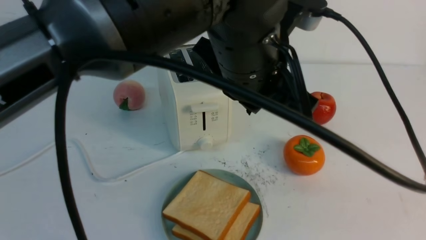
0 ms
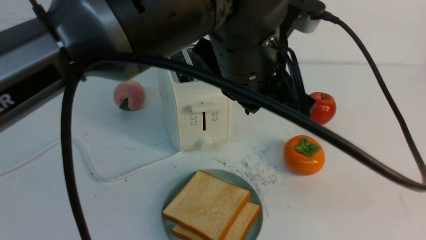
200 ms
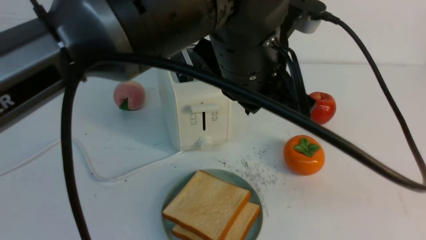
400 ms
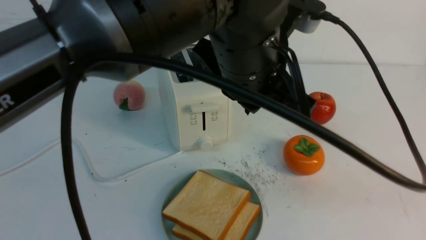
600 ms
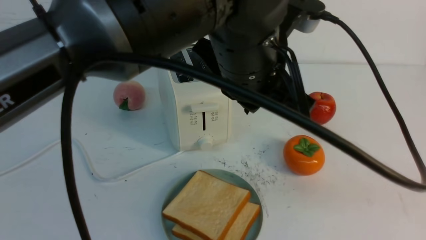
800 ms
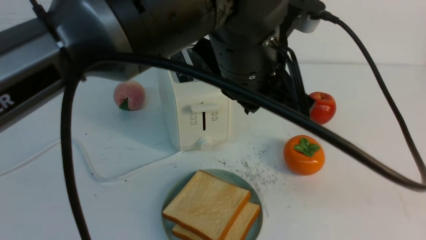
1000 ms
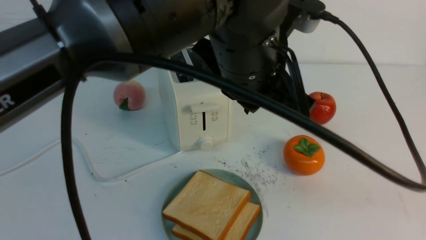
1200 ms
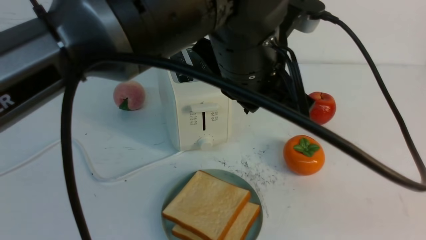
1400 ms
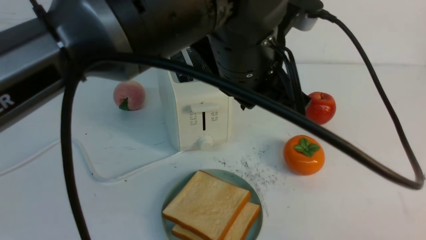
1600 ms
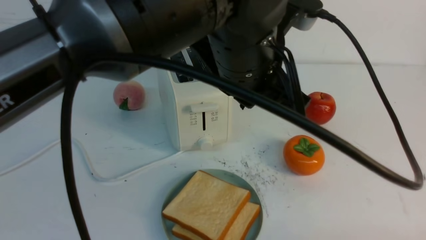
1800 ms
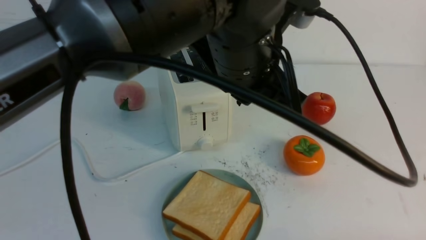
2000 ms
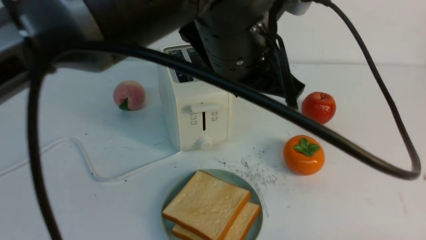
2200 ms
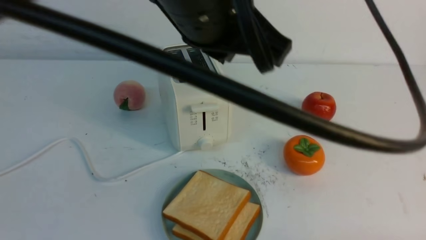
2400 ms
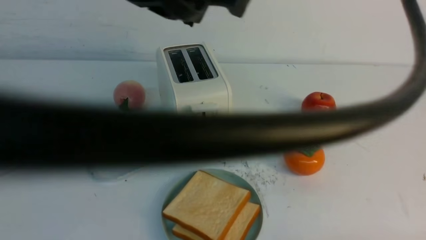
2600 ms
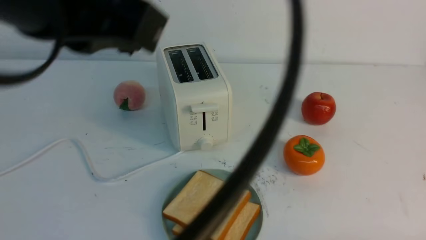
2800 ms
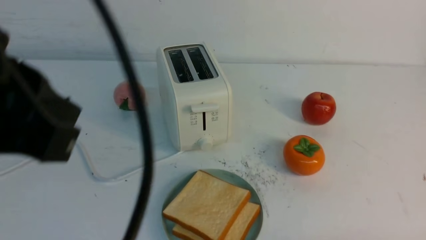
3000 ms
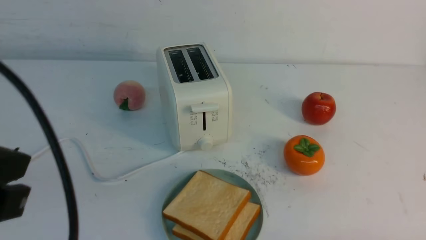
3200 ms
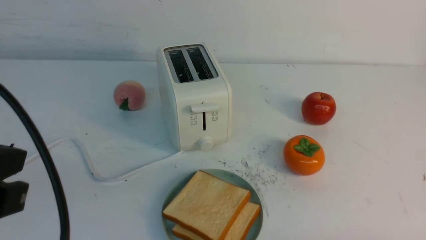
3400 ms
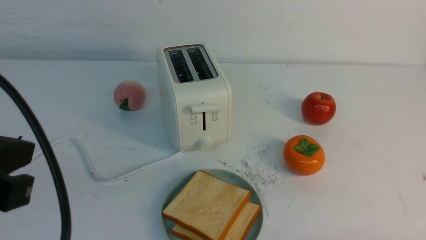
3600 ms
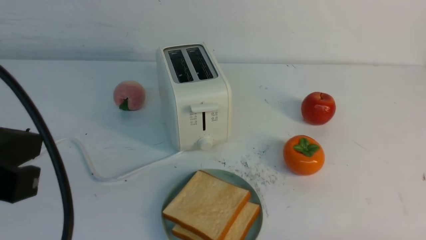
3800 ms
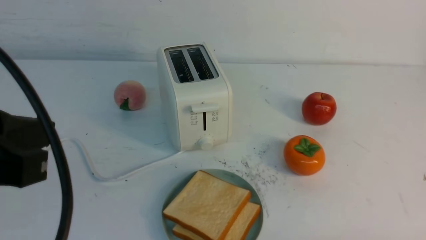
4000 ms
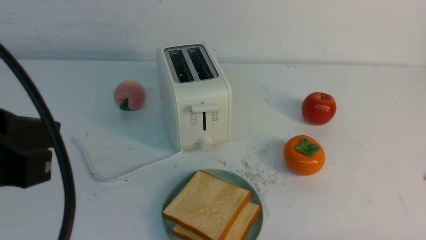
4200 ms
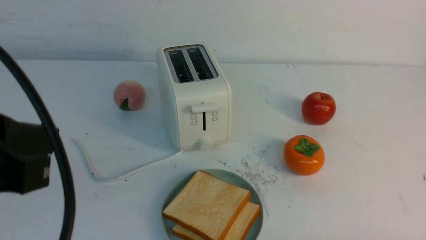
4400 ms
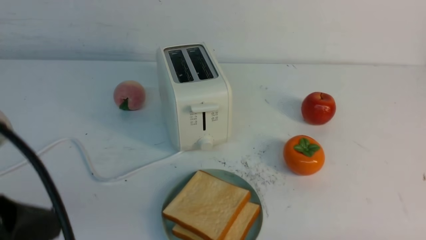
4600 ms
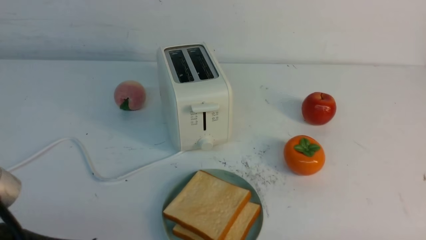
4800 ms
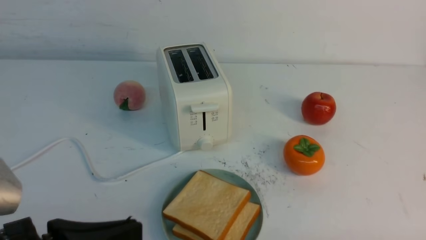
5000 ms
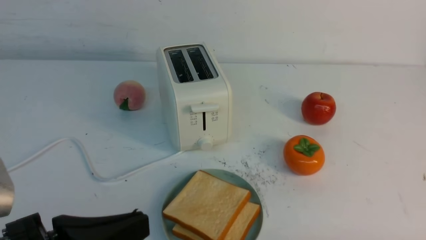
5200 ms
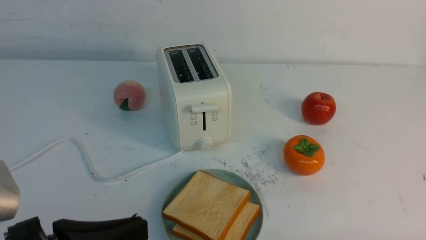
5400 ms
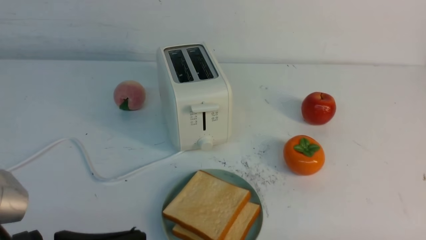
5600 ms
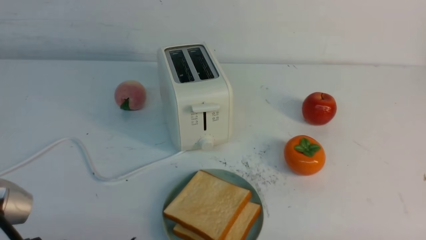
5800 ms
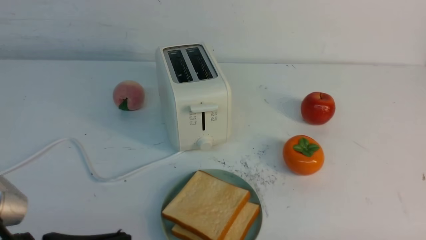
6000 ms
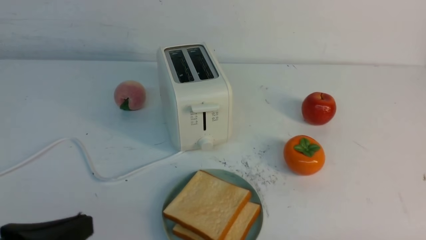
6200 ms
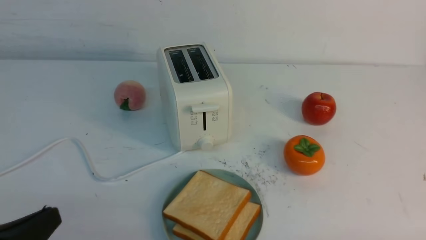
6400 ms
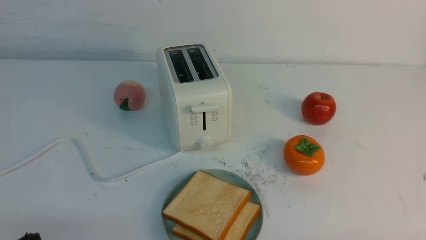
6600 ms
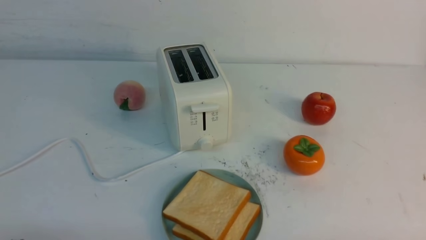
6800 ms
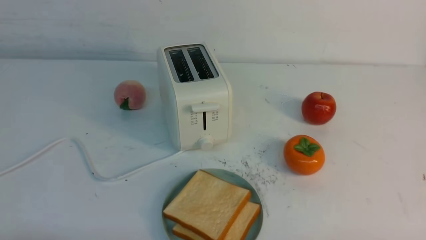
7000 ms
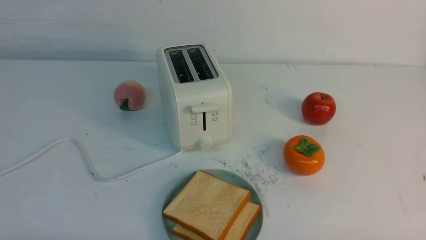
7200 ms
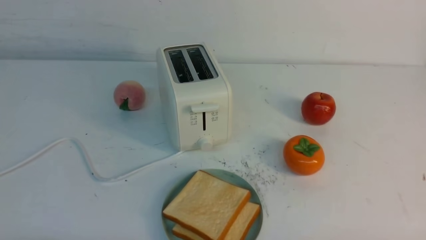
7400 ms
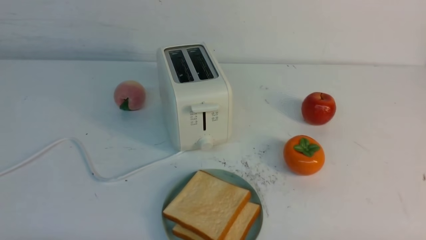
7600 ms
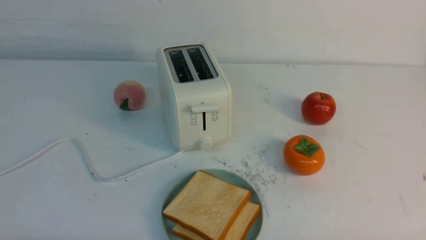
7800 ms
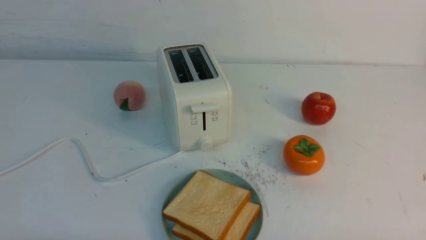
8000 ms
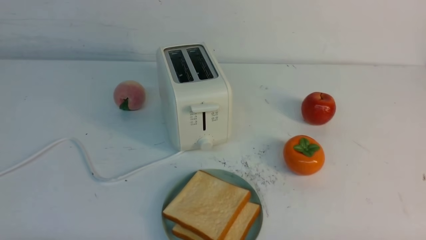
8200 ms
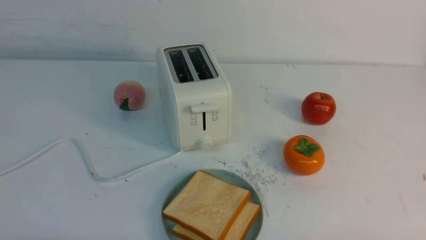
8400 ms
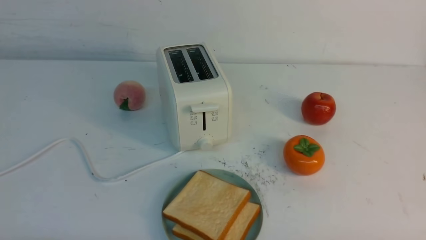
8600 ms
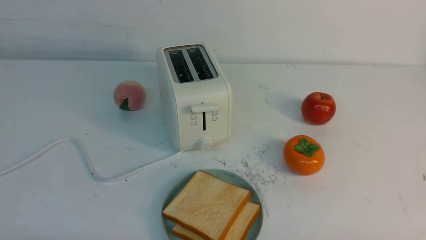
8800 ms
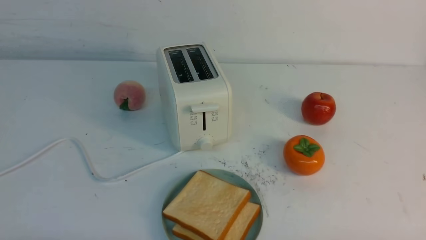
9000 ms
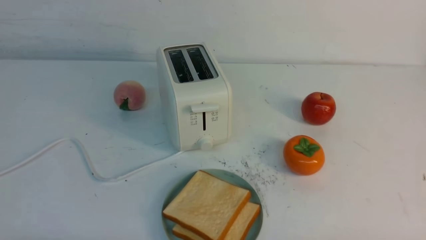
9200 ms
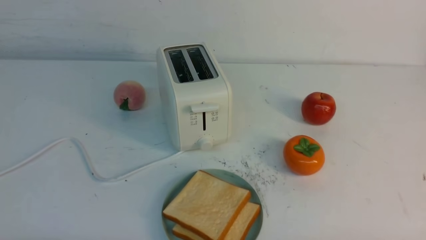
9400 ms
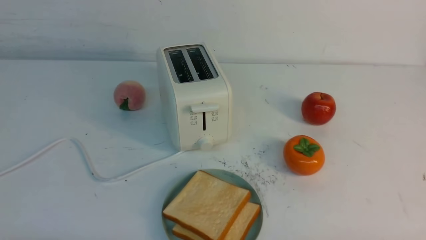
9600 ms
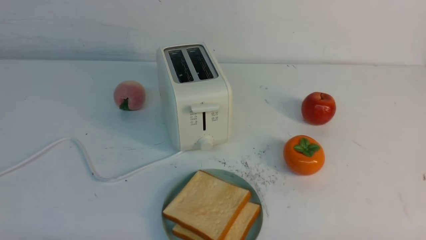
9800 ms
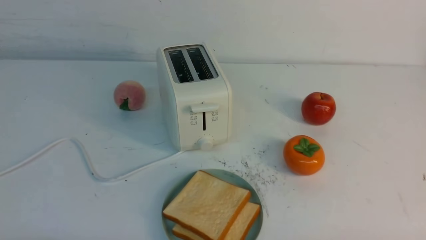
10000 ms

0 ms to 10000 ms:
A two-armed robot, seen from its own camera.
Task of the whole recording: take toasted bread from bread machine on white table place on plate.
0 ms to 1400 ms: The right gripper is displaced downward by approximately 5 cm.
1400 ms to 2800 ms: The right gripper is displaced downward by about 10 cm, while the left gripper travels to the left, backward and upward by some 20 cm.
2800 ms to 4200 ms: The left gripper goes approximately 10 cm downward and to the left.
4200 ms to 5800 ms: The left gripper goes approximately 10 cm downward.
5800 ms to 7200 ms: The left gripper goes roughly 15 cm downward and to the left.
7200 ms to 10000 ms: Neither gripper changes place.

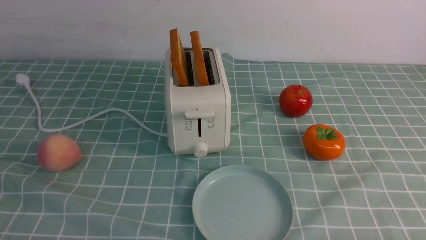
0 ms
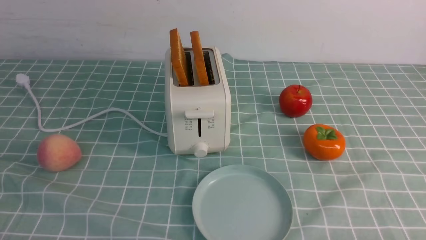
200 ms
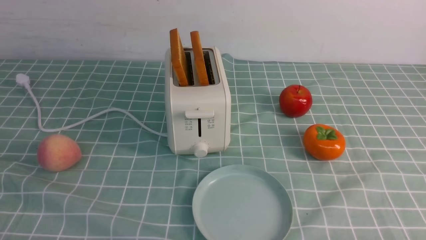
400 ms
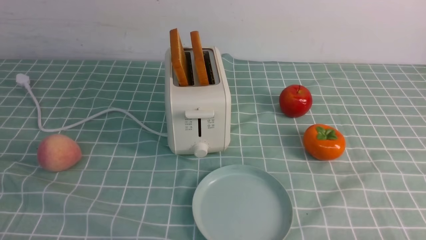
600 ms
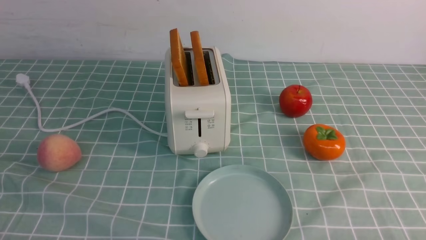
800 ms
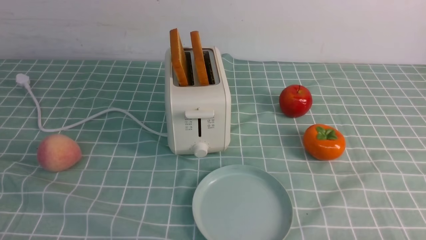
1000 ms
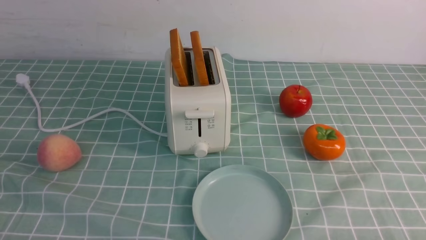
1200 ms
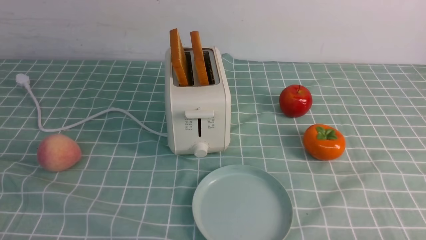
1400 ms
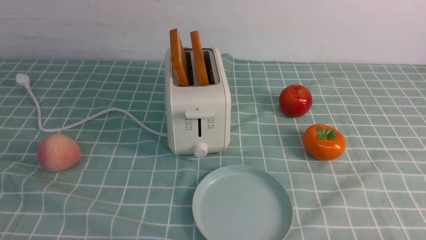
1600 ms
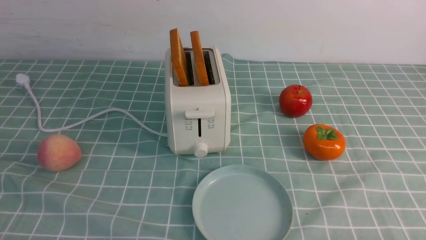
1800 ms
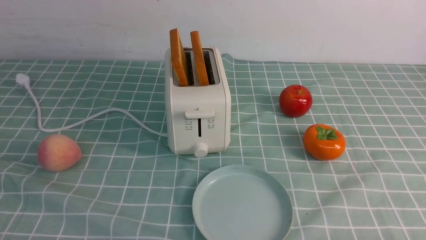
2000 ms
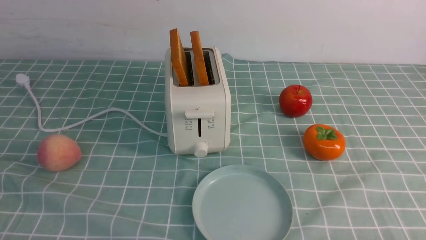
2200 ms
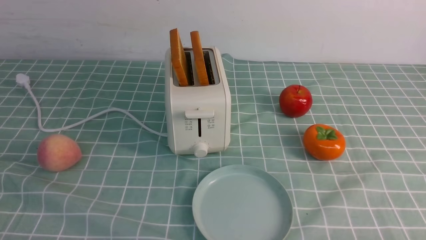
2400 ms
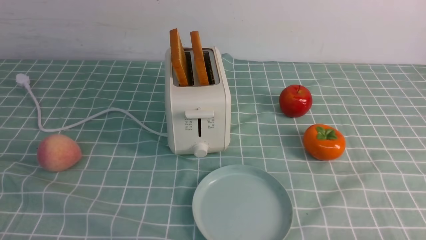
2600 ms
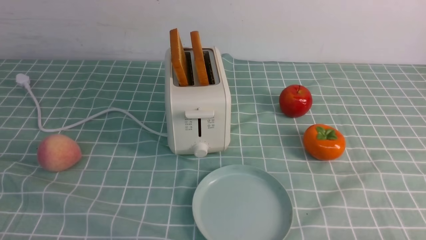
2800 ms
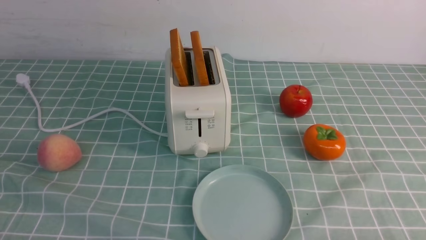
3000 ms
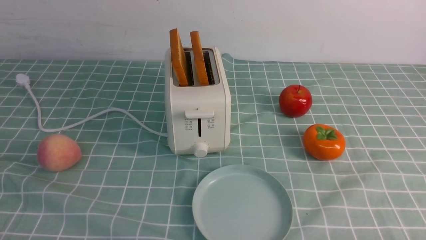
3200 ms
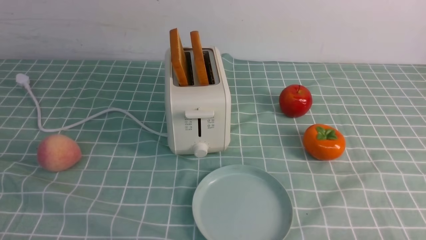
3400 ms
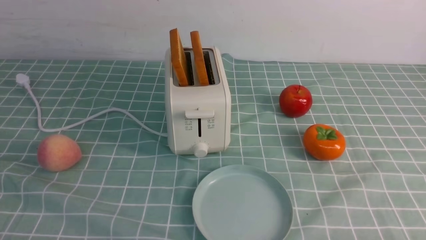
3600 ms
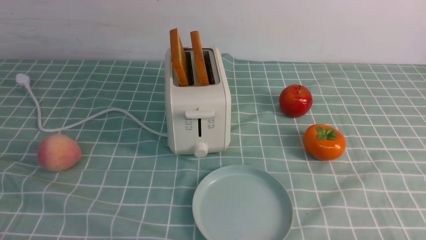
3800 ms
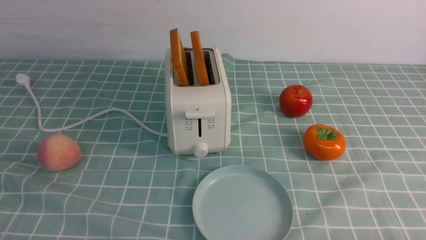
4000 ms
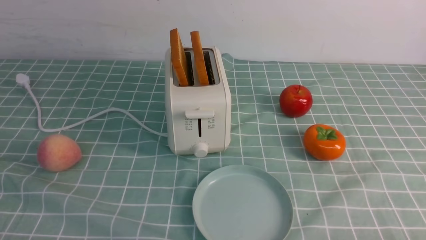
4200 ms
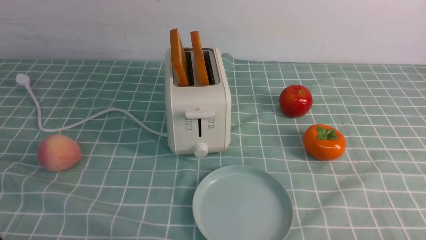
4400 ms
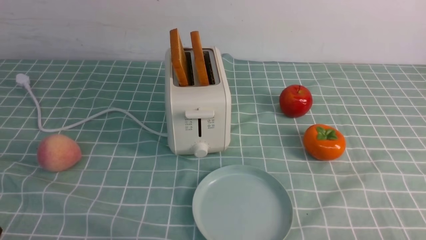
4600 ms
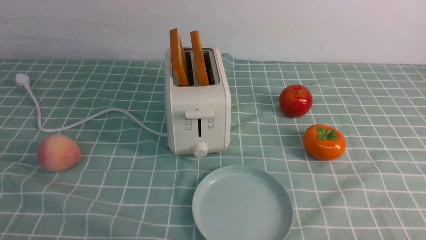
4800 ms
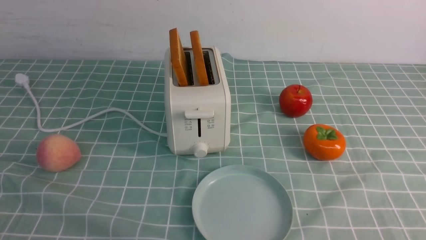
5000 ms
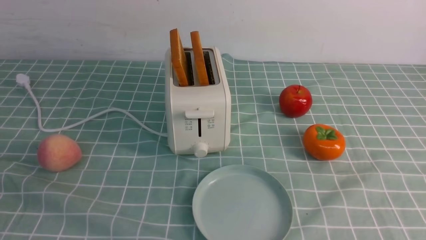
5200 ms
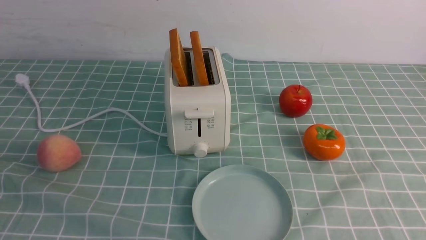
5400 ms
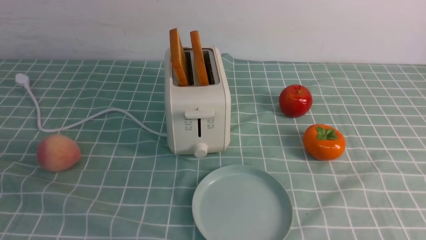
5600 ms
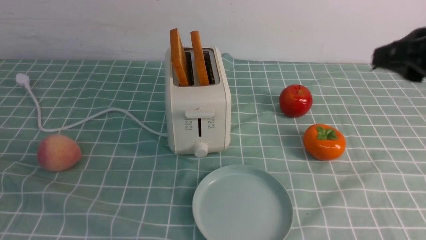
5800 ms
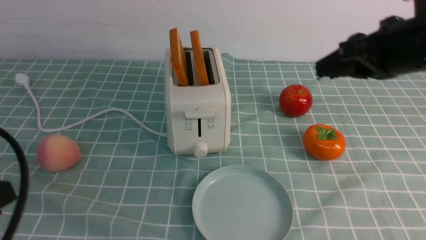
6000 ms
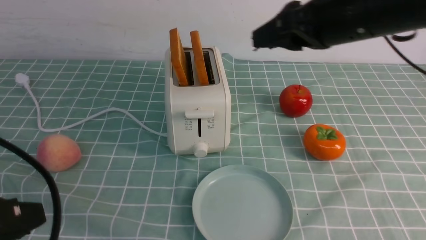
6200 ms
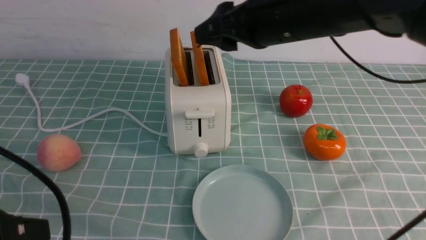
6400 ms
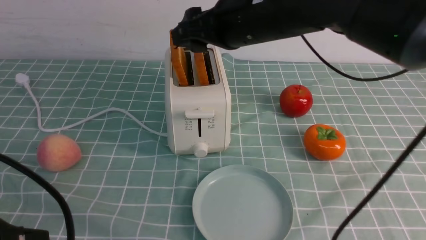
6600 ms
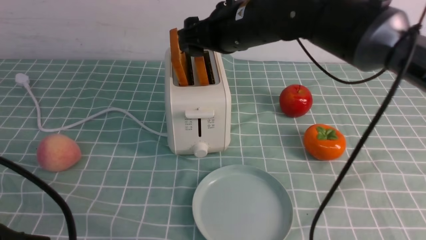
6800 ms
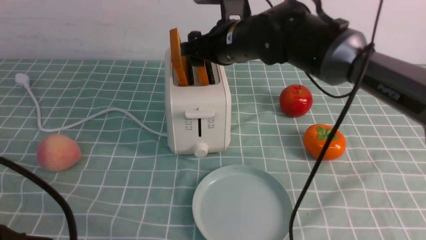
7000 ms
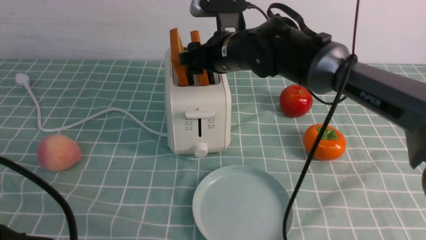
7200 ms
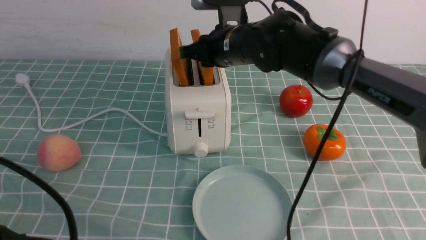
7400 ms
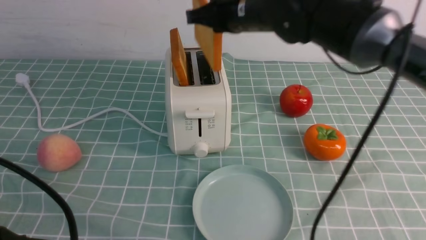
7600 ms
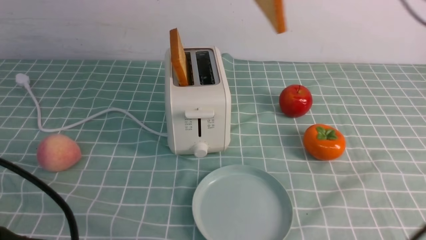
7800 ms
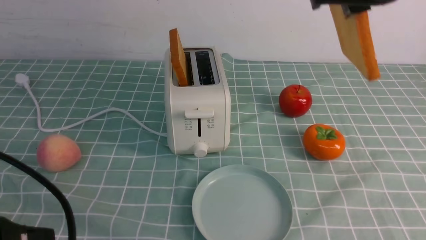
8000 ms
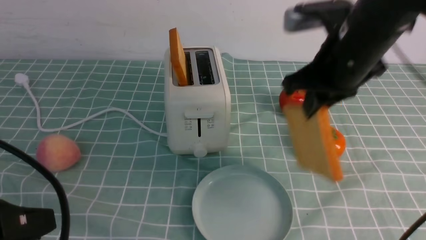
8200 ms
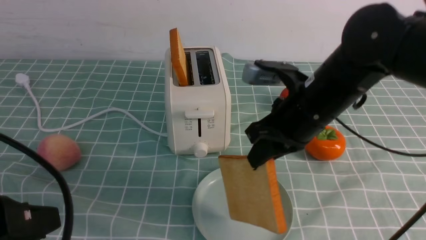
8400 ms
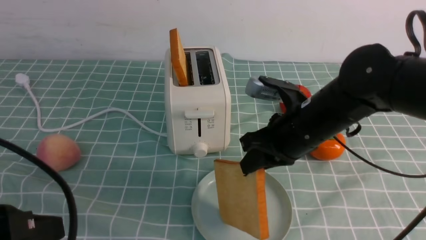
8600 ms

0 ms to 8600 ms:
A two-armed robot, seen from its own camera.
Task of the whole recording: take toasted bread from bread machine on blue coffee table place on plate.
Step, 0 ms to 7400 ms: use the right arm to take out a slice of bread.
0 ms to 2800 ms: Both grippers stay put.
4400 ms to 5800 ms: The right gripper shifts roughly 30 cm upward and forward.
5800 ms to 7200 ms: The right gripper shifts some 30 cm to the left, forward and downward, while the left gripper moves some 5 cm.
7200 ms to 8600 ms: The right gripper travels backward and to the right by some 15 cm, reaches approximately 15 cm upward, then returns, and closes.
